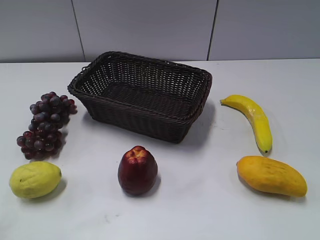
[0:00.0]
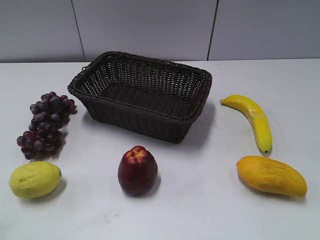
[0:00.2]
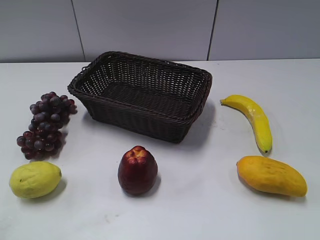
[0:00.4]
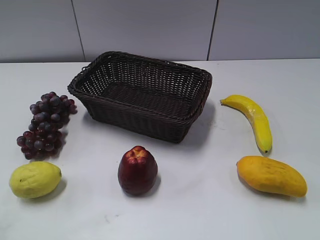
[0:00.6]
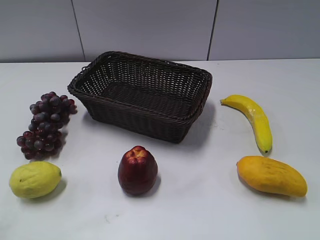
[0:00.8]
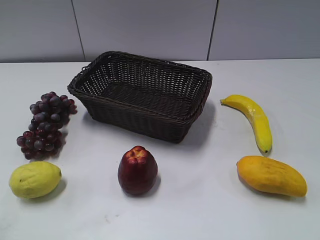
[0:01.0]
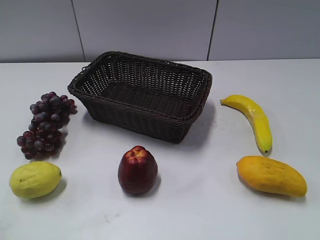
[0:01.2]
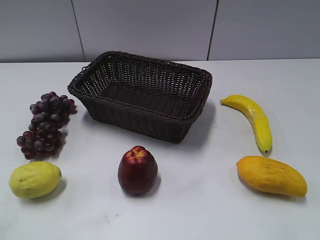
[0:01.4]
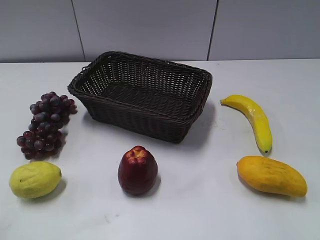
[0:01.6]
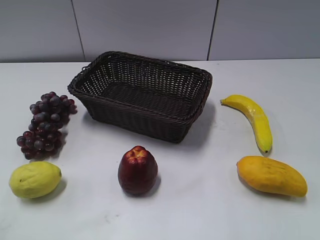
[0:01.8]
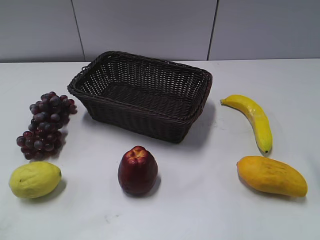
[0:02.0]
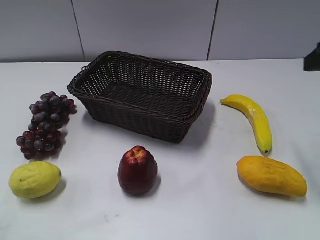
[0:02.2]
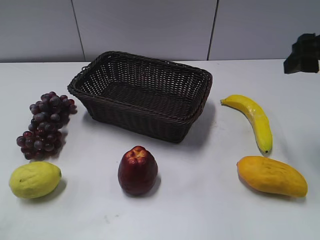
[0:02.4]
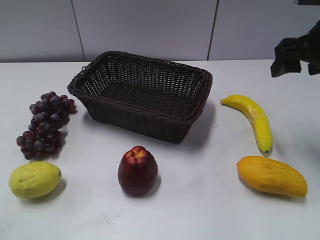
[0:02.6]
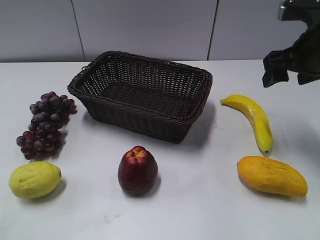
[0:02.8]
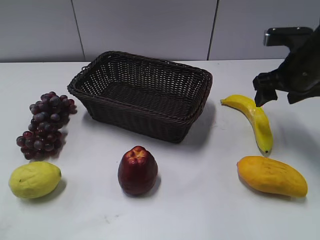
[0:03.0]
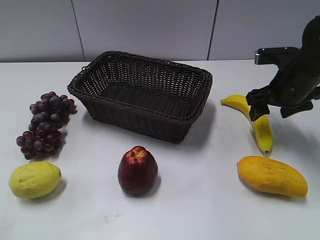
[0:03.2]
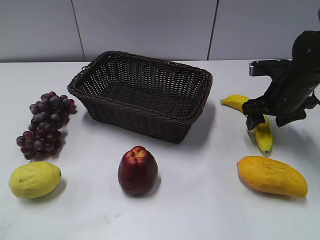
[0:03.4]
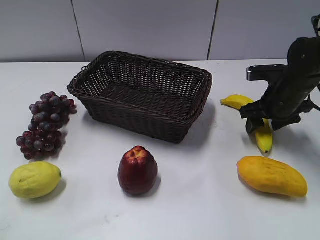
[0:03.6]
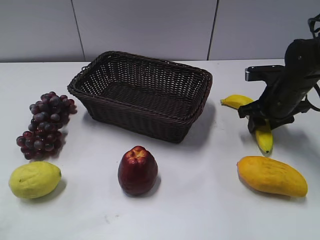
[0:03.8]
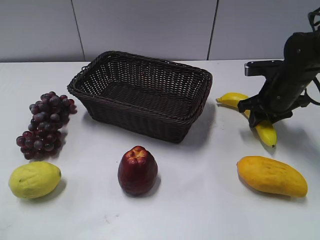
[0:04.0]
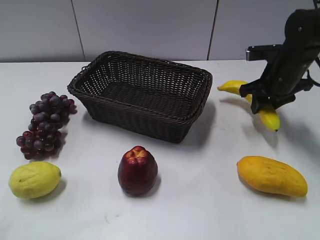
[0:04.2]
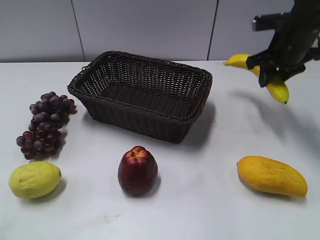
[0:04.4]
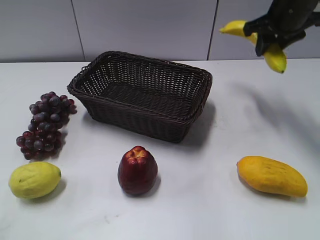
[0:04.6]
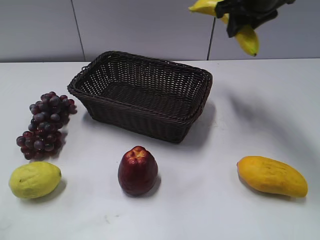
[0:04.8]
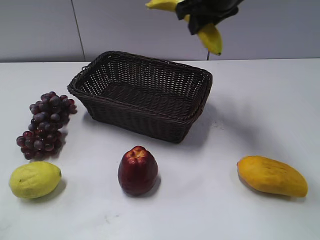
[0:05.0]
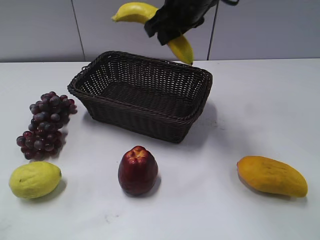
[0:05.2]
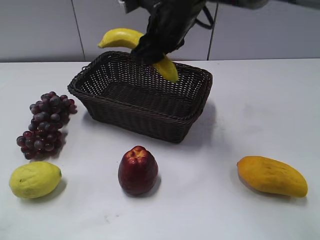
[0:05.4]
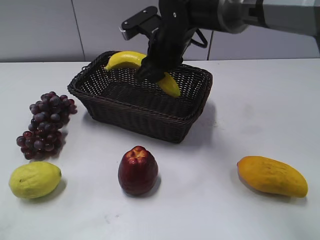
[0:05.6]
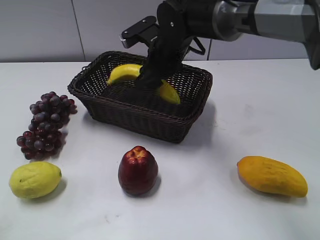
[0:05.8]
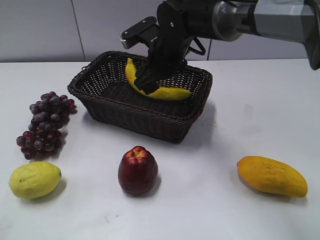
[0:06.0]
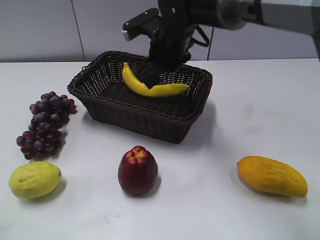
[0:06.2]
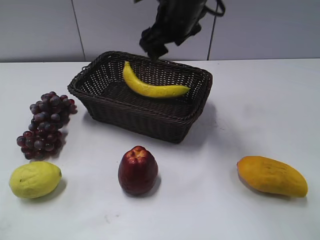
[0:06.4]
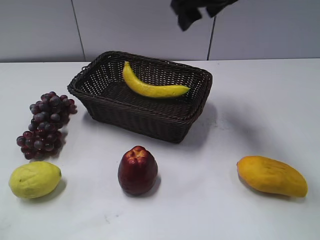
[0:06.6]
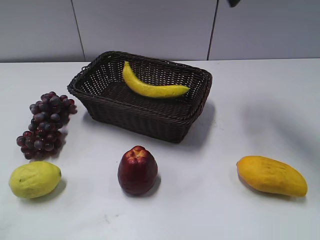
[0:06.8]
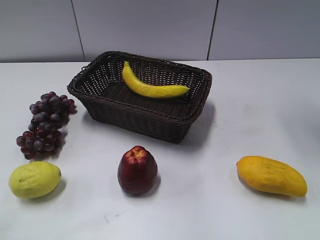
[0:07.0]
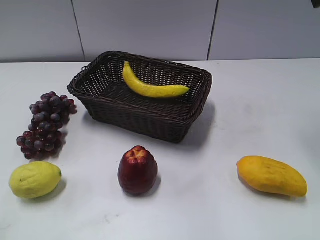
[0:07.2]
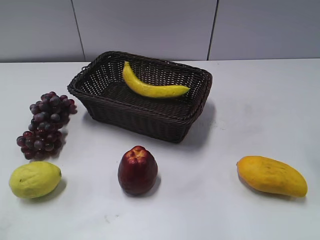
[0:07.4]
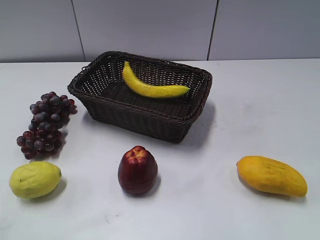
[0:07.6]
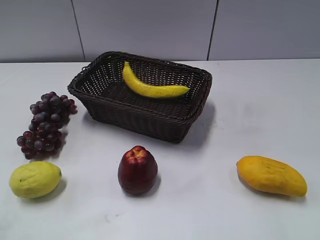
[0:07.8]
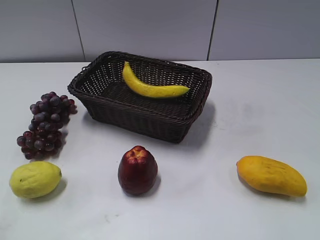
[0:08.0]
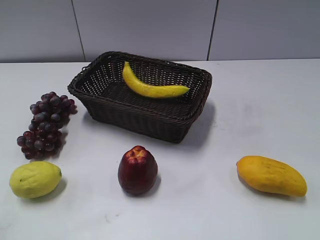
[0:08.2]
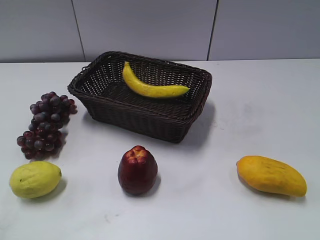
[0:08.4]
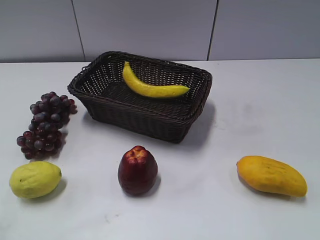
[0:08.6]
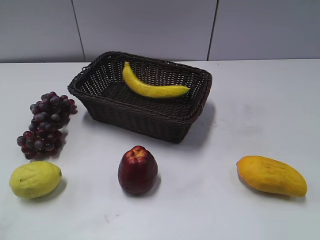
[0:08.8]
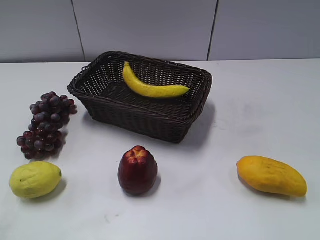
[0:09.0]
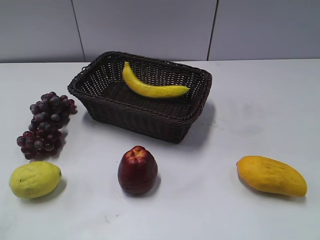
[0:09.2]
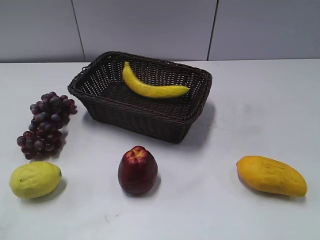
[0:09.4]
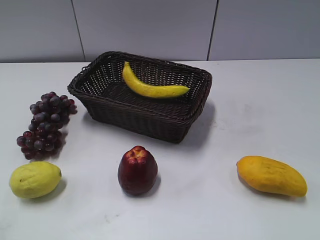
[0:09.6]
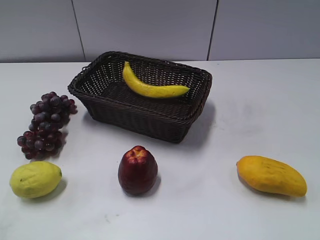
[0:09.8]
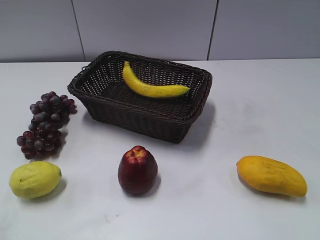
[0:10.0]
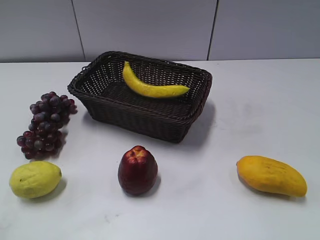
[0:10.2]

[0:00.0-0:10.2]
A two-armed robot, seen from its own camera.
Step, 0:02.2 to 0:04.0: Grasp the banana with right gripper.
Step, 0:04.2 to 0:06.4: Place the banana in the basket with right gripper.
0:01.4 to 0:03.0: The right gripper is displaced forward and downward by some 35 cm.
0:03.0 to 0:04.4: The right gripper goes roughly 5 cm forward, travels downward and back again, about 10 cm each way, and closes its fingers.
0:04.4 to 0:05.8: The right gripper heads to the left, covering some 20 cm, and opens.
0:05.8 to 0:07.2: The right gripper heads to the right and upward, covering roughly 35 cm, and opens up.
